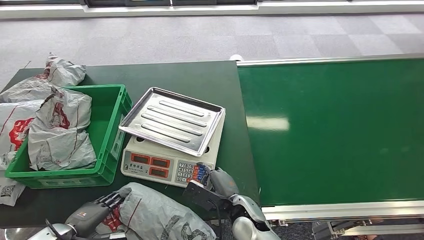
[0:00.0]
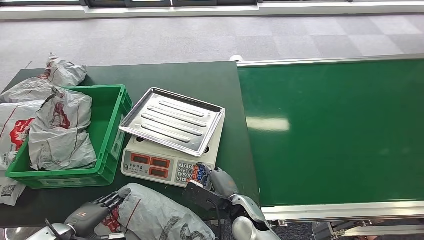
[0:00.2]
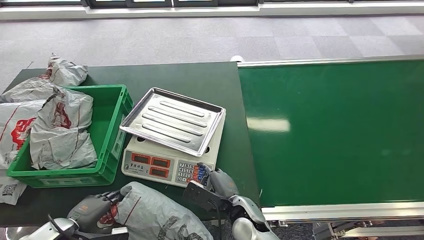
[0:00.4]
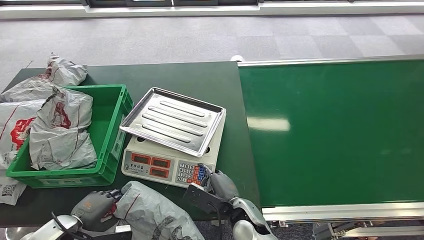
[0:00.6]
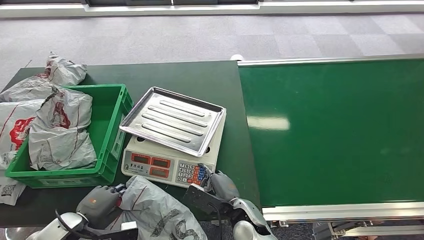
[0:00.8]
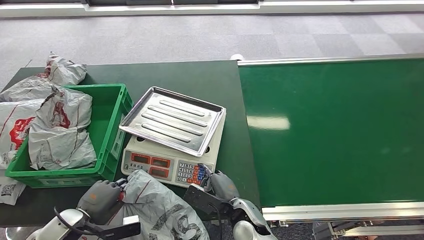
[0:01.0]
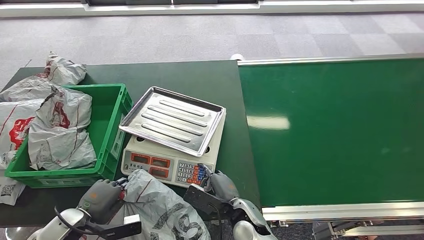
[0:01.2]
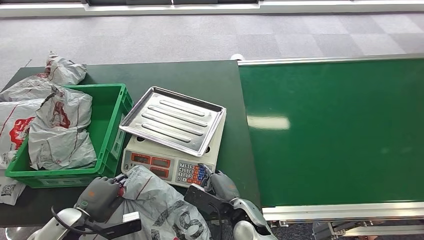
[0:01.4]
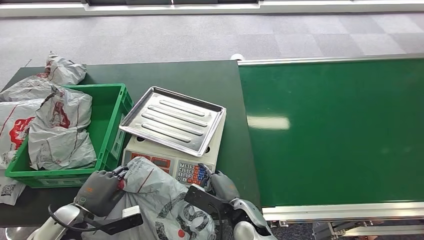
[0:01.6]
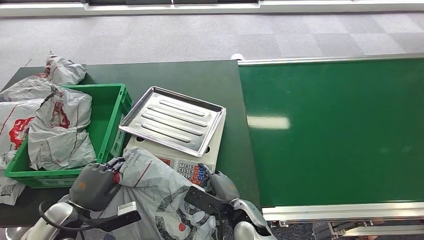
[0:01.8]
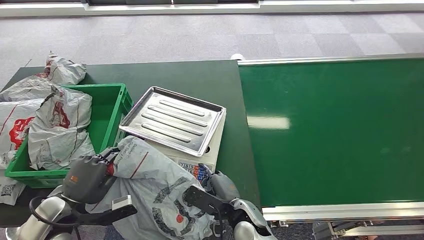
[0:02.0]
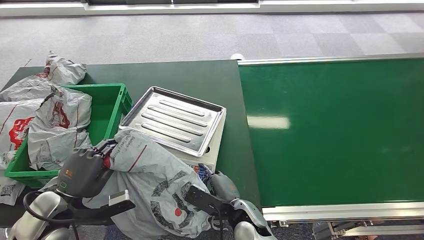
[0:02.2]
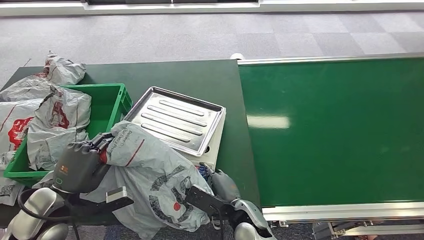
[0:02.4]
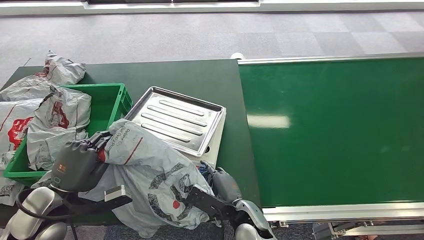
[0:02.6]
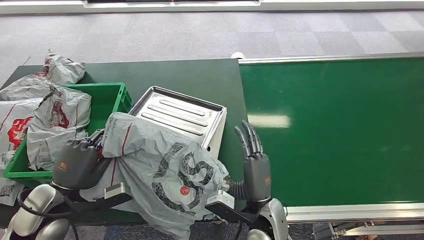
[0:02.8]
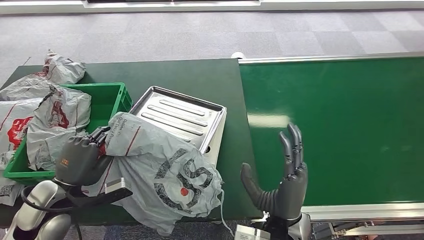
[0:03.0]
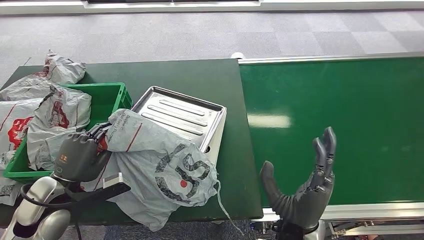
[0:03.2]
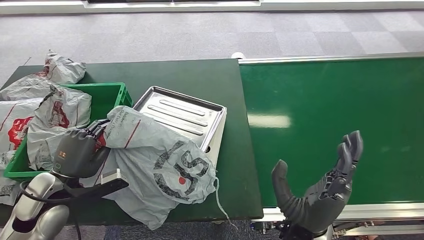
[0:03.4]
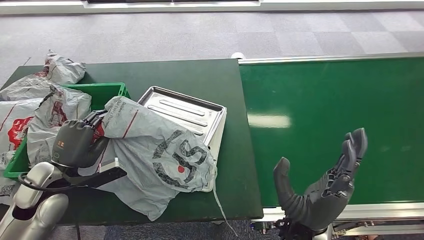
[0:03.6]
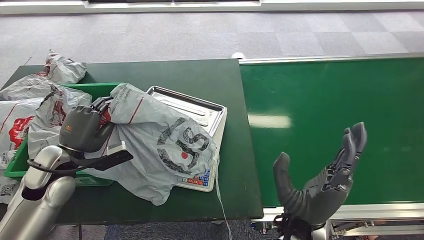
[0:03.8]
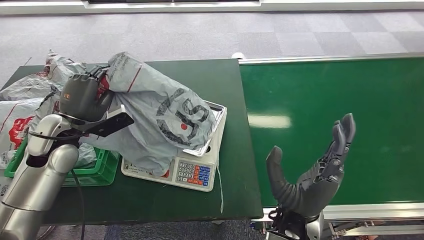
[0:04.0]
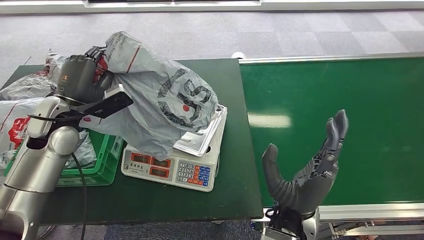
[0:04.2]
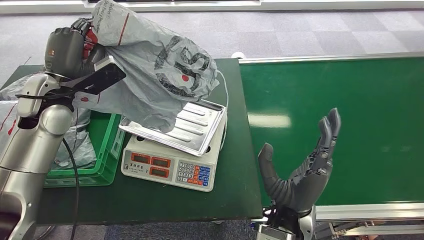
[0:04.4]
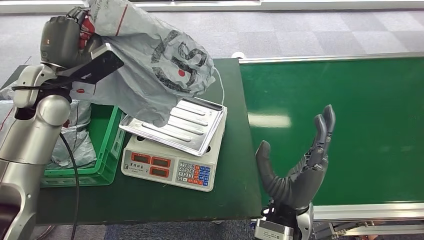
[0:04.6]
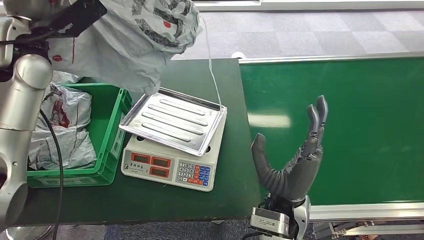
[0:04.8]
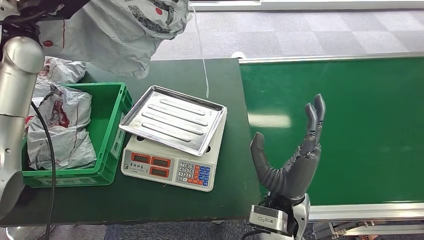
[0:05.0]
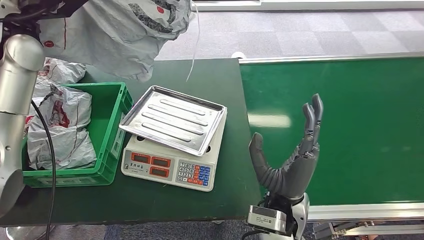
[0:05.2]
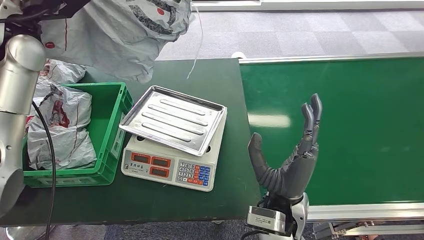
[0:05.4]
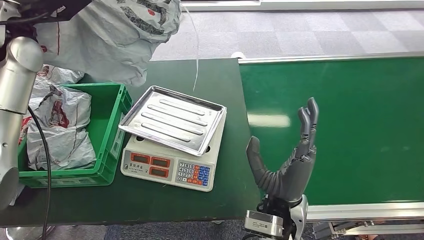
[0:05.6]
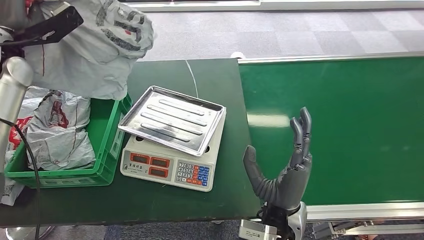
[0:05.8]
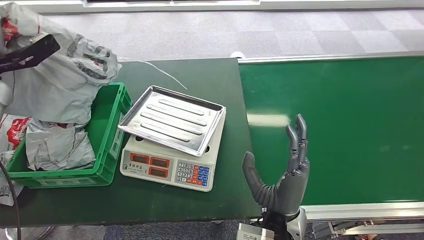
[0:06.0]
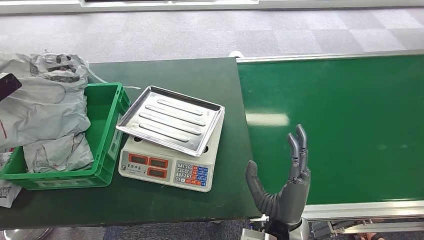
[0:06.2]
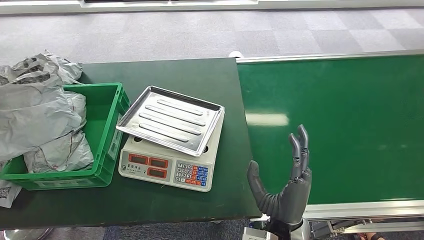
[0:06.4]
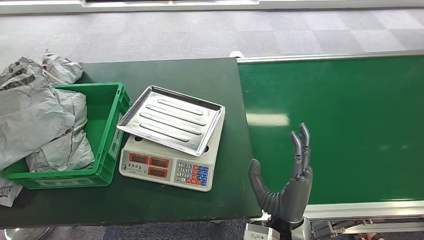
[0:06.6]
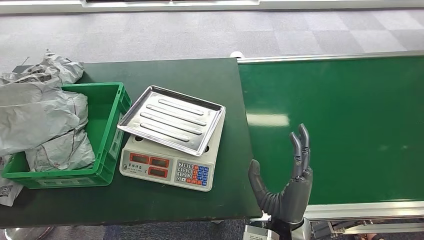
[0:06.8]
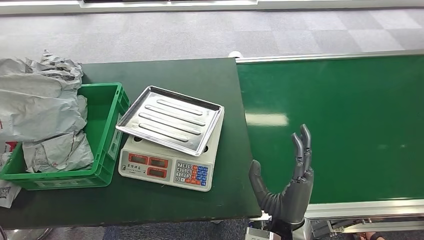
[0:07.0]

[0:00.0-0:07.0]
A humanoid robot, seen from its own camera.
Step, 0:00.0 to 0:04.6: Pick up the package from the inbound machine.
Step, 0:04.8 to 0:07.0: Place the package into the parcel locker.
0:00.0 to 0:01.4: The left hand shifts some 5 cm to the right.
